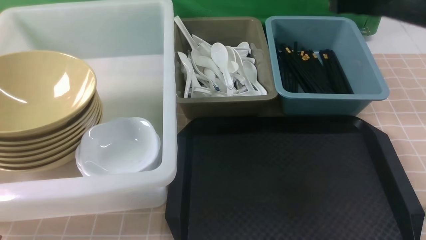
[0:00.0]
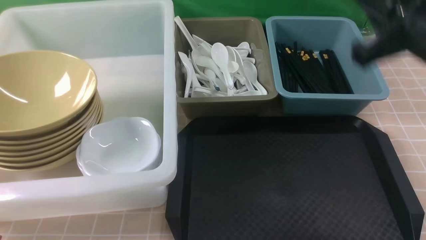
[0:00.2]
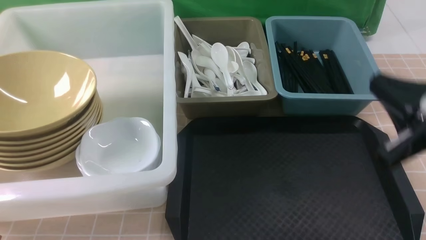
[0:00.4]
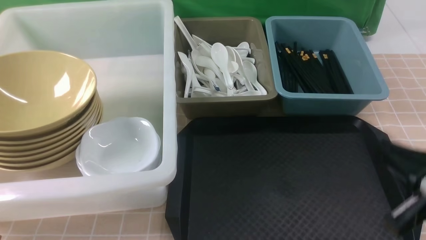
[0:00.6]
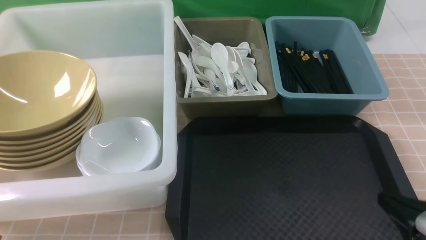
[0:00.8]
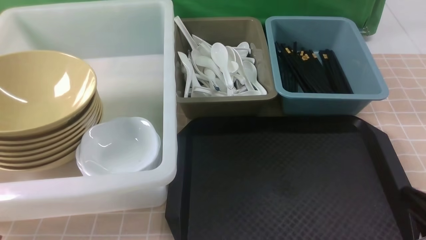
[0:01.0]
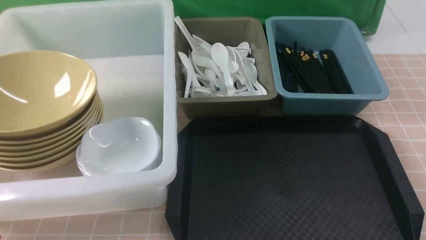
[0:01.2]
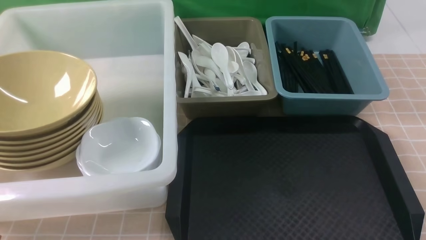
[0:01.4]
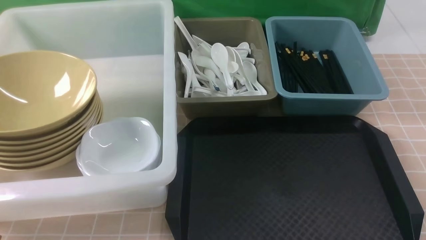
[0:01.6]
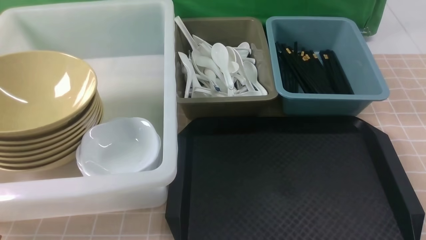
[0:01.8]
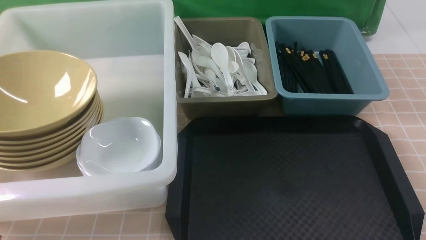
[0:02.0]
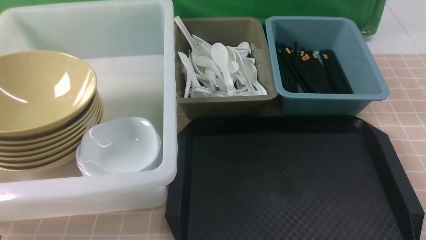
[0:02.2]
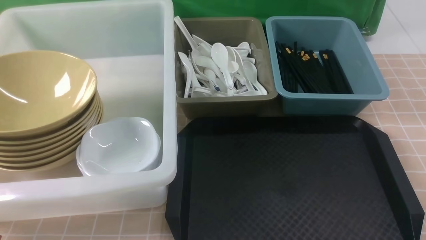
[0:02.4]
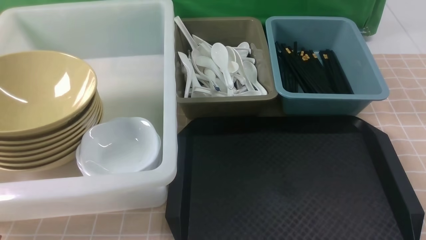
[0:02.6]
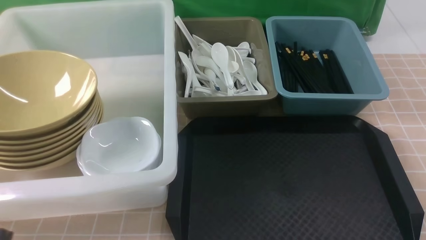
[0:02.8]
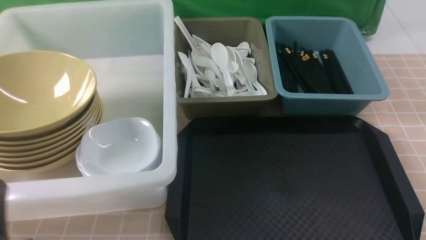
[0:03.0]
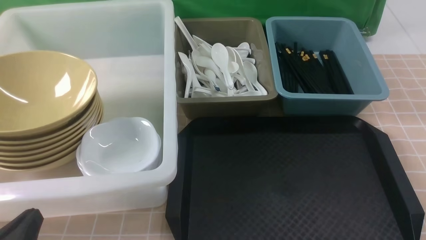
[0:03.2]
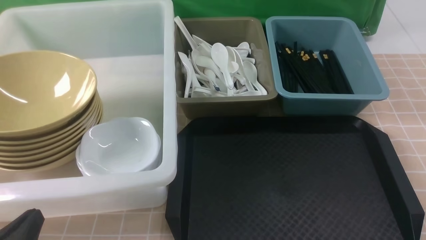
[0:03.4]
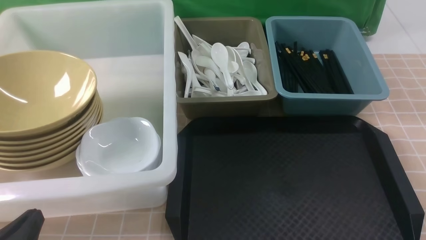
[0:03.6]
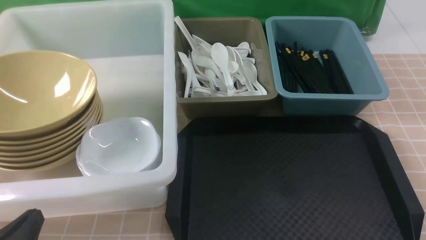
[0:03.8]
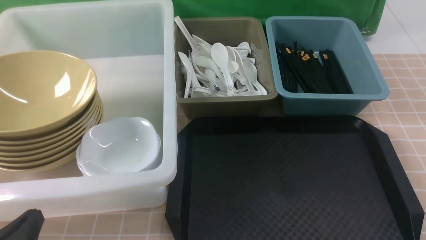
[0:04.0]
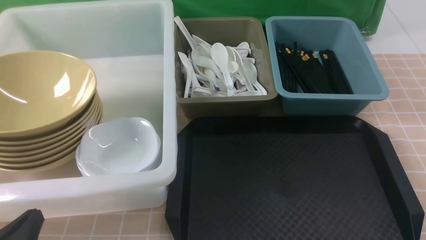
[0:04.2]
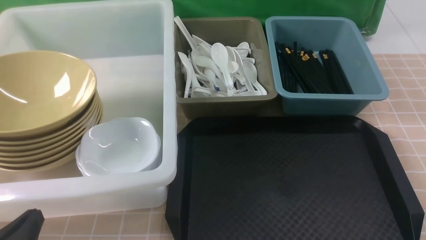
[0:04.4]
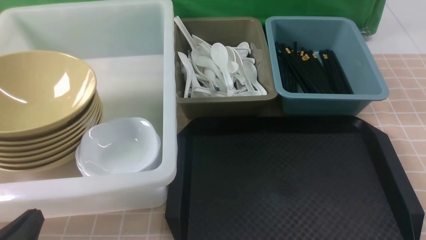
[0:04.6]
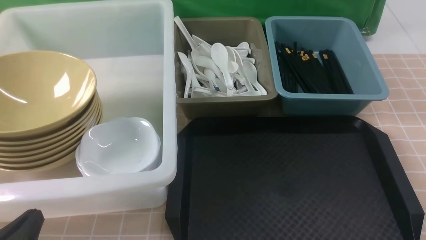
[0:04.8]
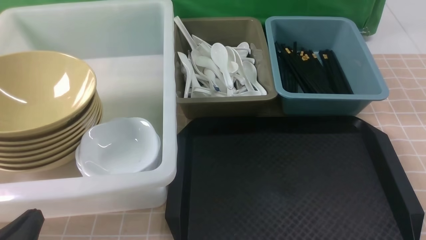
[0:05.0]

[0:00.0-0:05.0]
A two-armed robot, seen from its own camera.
Task of the whole recording: on brown table put chopsticks spoon bowls plates into blue grey white boxes.
0:00.0 to 0:01.6: The right gripper moves backward and downward, approximately 35 cm.
0:01.6 to 0:03.4: The left gripper goes roughly 10 cm downward.
0:03.4 to 0:05.0: The two grippers keep their place.
